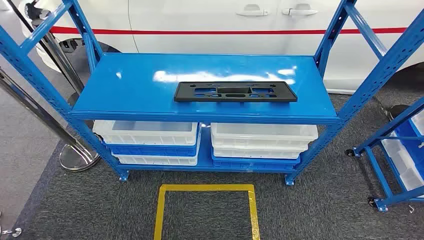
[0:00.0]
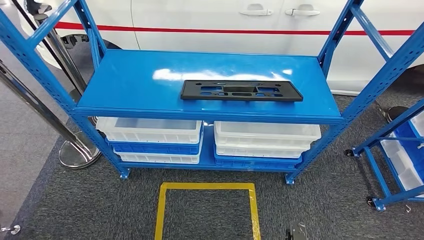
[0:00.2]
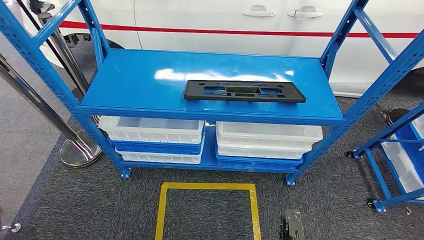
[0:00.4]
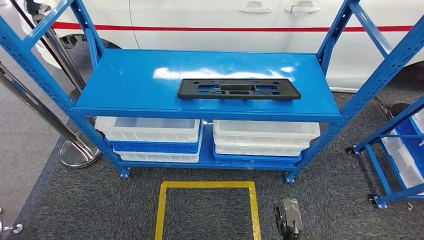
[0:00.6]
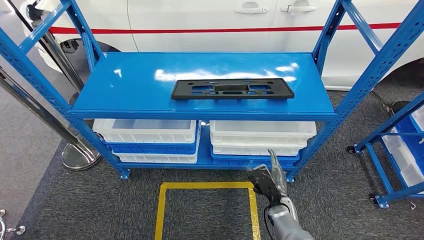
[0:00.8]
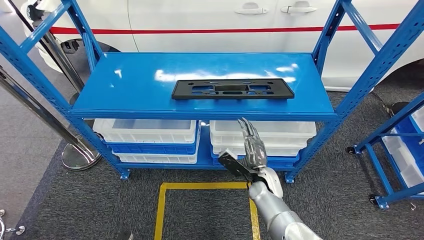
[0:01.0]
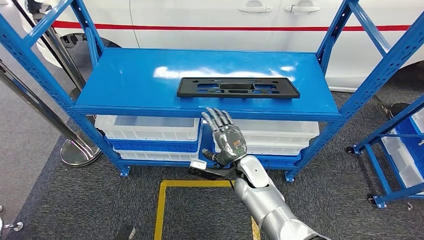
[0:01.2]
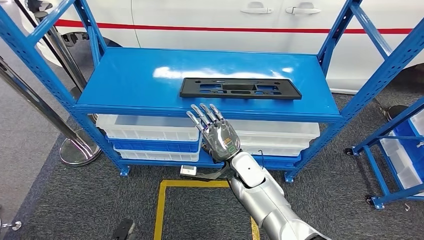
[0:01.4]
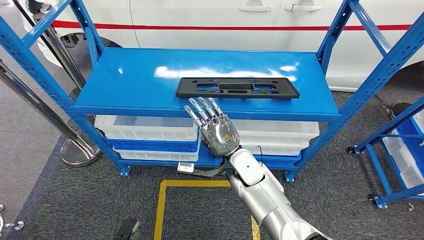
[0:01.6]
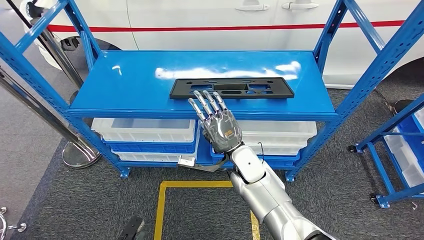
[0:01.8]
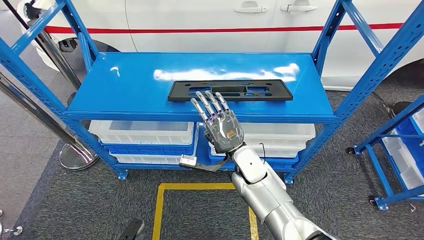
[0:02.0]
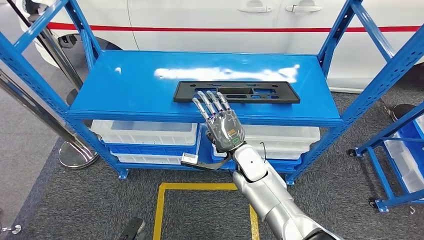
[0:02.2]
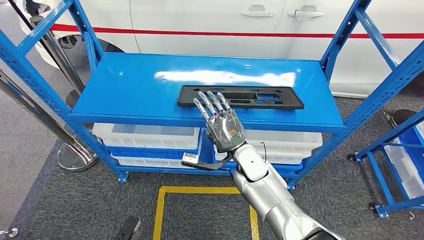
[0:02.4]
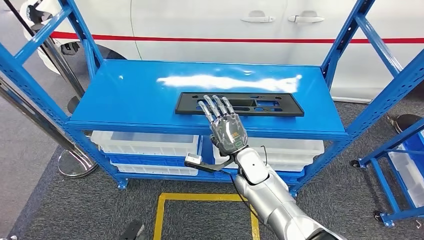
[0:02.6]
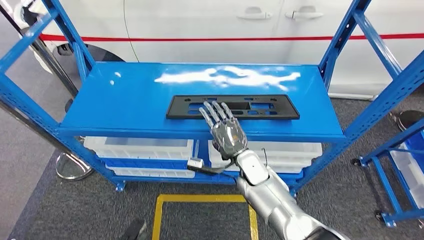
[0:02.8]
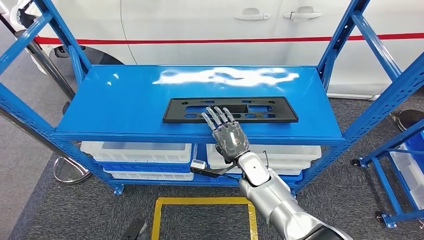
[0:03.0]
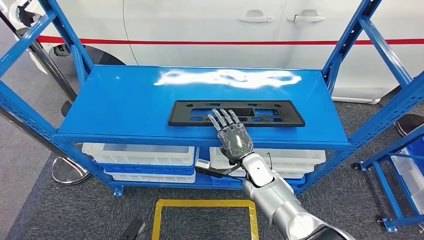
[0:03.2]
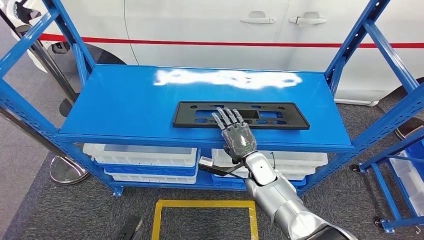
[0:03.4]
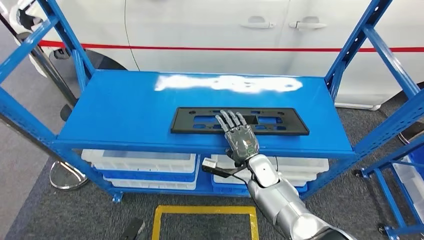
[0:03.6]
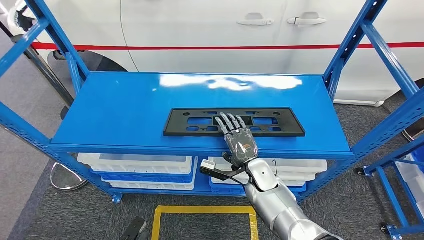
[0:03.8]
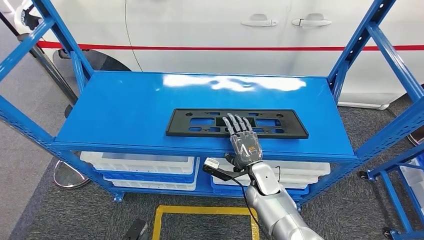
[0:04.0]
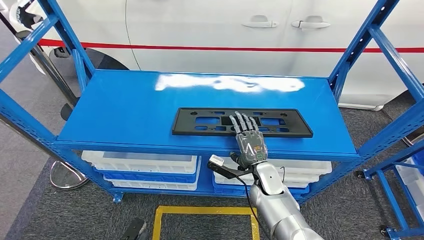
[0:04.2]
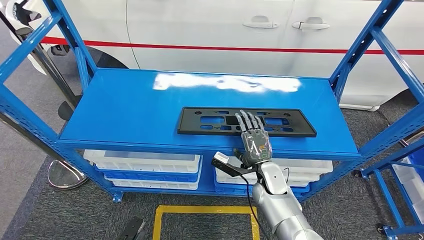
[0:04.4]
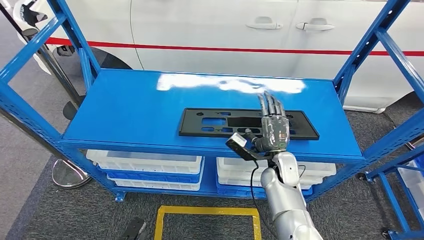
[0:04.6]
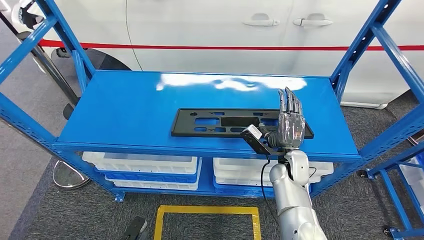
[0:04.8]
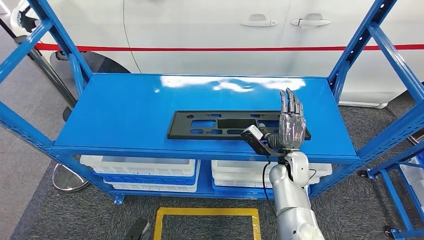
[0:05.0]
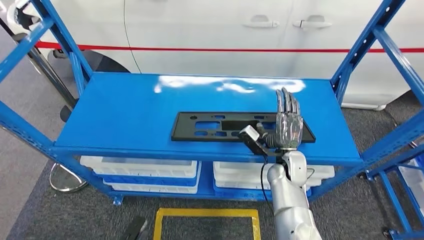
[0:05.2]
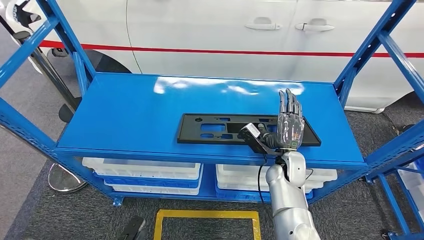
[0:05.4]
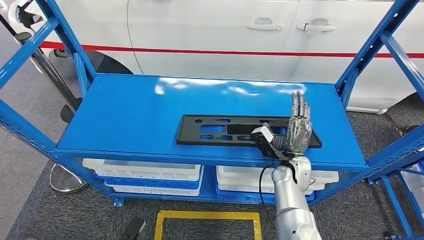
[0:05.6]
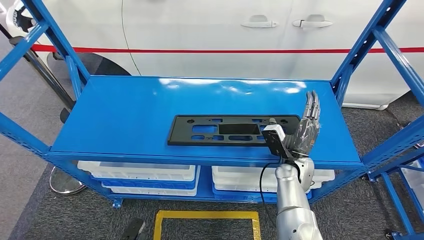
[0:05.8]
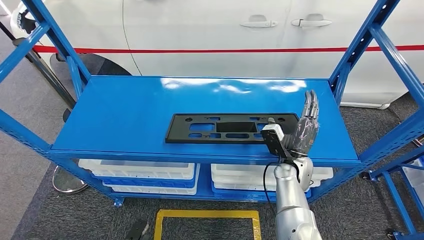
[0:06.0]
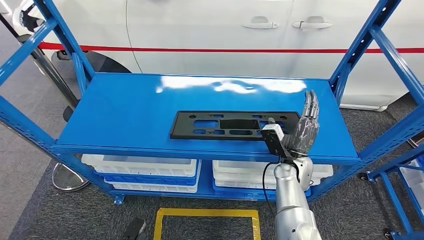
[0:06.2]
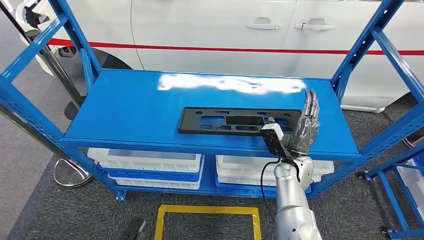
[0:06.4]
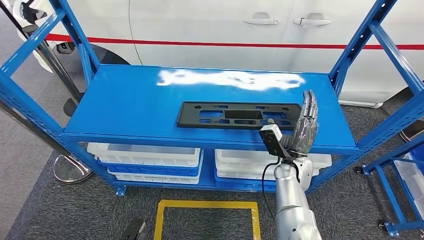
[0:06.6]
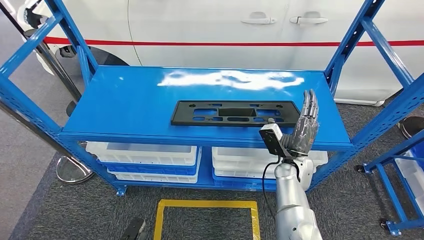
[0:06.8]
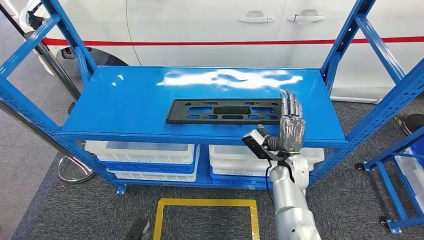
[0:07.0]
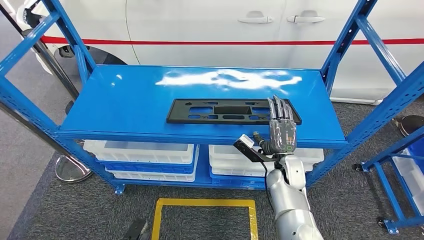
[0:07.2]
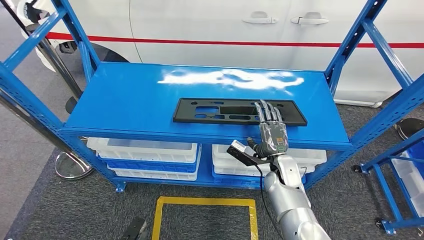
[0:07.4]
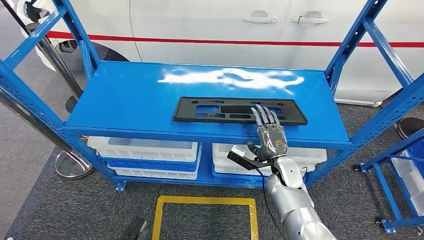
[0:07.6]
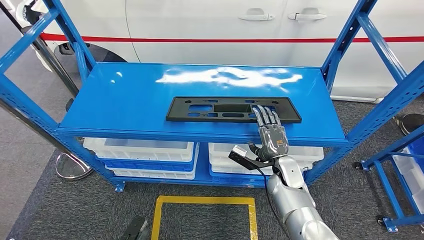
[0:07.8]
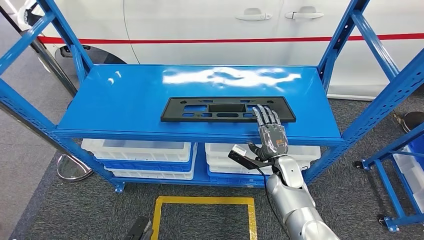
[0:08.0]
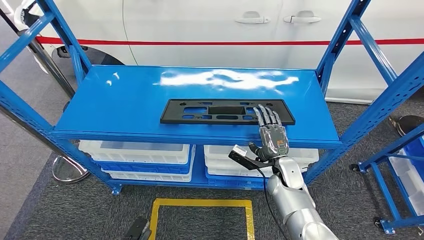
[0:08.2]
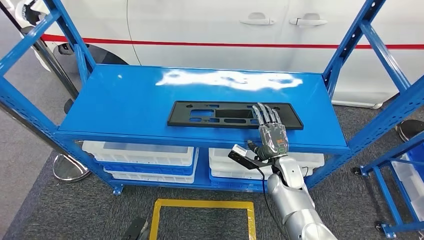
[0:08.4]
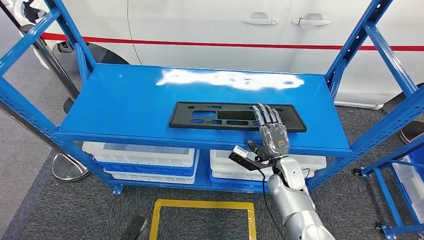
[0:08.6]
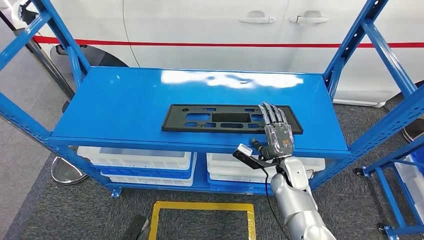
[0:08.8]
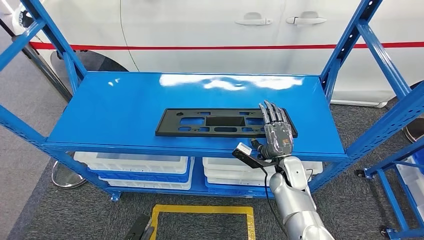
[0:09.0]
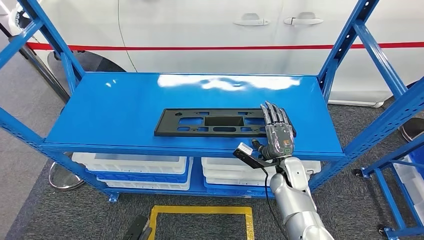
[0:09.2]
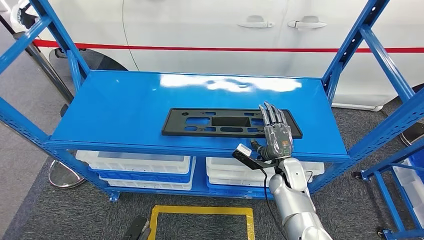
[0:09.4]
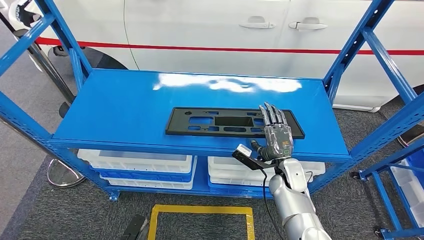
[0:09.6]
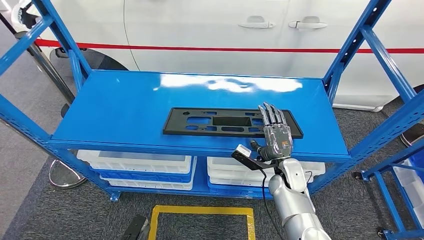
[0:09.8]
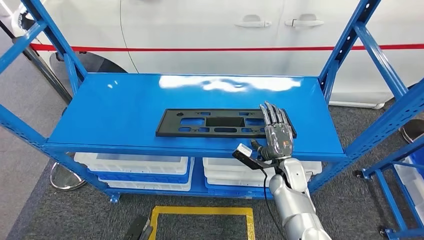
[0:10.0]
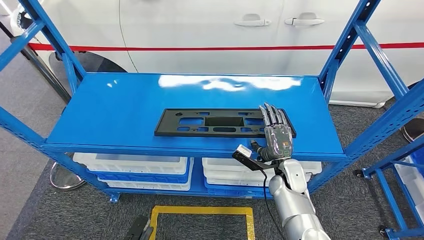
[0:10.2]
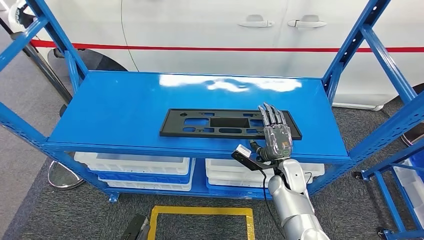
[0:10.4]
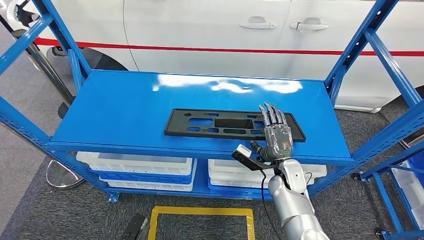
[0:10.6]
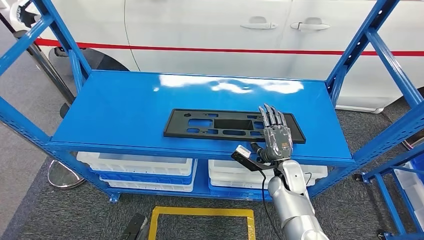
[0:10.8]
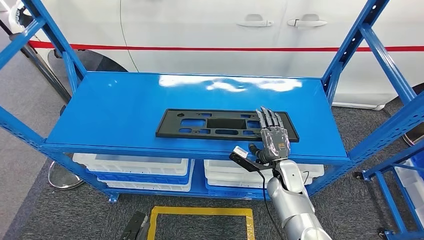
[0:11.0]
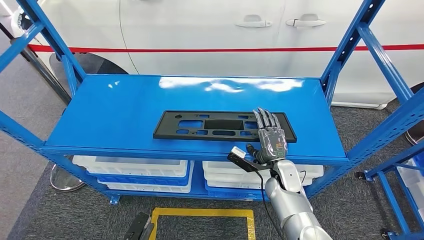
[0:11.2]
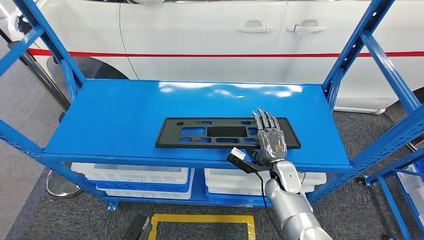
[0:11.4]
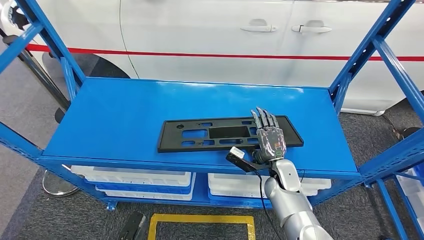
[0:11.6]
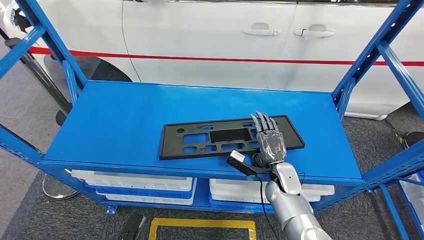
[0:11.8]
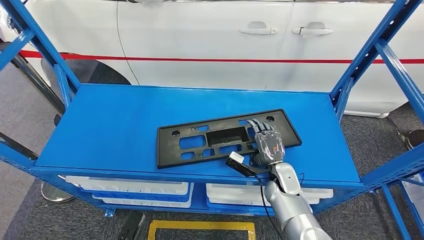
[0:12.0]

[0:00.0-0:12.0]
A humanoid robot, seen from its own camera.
0:09.0 to 0:10.4: Both hands stay about where they are.

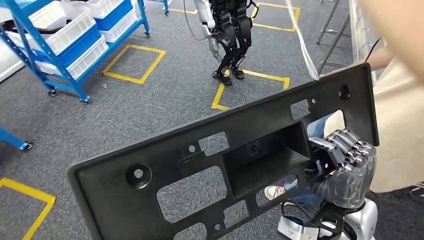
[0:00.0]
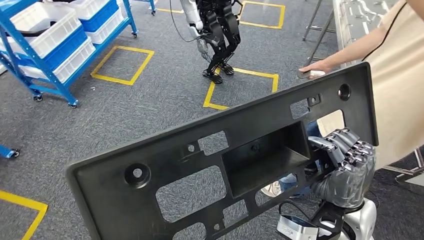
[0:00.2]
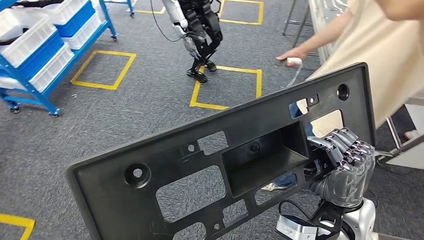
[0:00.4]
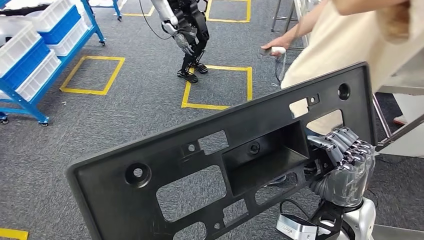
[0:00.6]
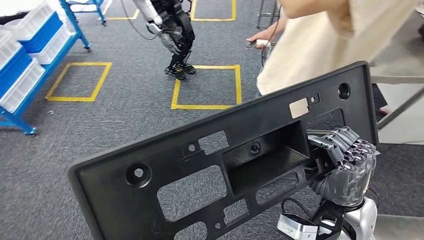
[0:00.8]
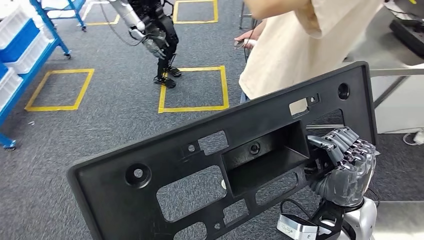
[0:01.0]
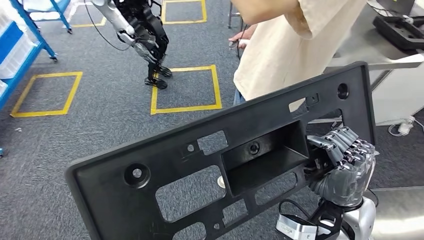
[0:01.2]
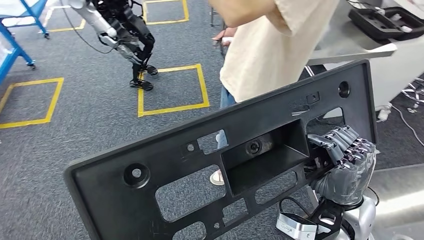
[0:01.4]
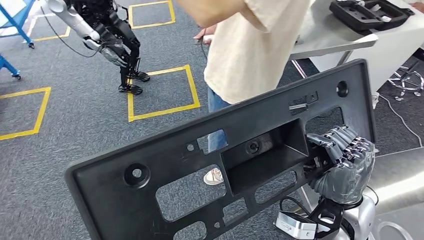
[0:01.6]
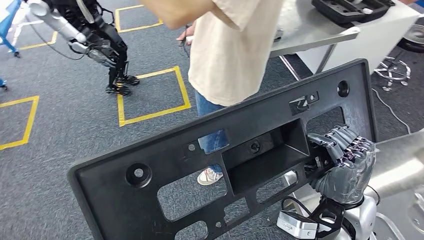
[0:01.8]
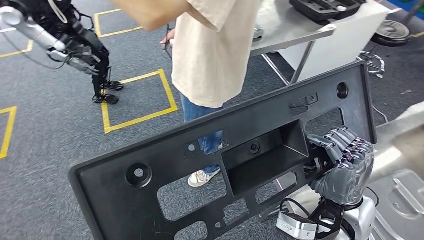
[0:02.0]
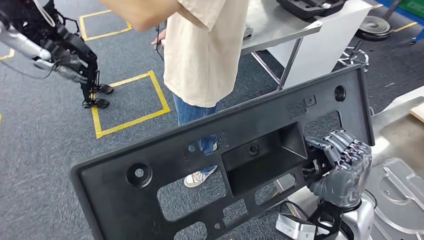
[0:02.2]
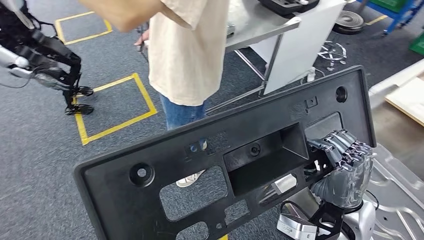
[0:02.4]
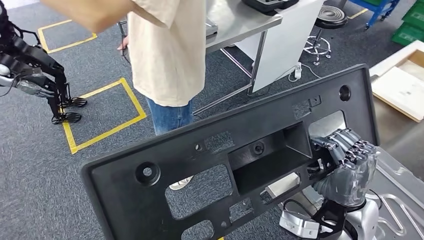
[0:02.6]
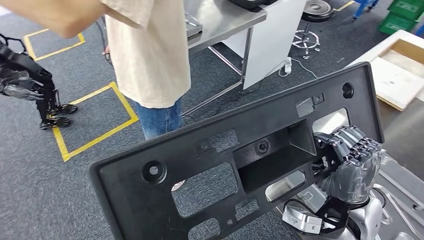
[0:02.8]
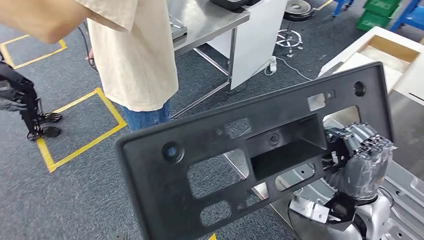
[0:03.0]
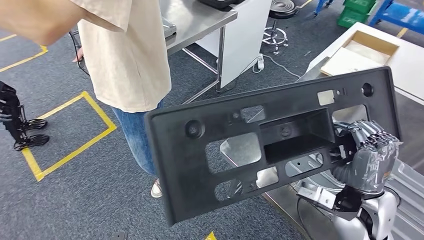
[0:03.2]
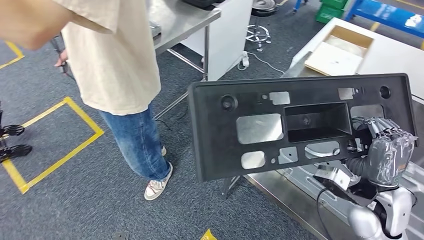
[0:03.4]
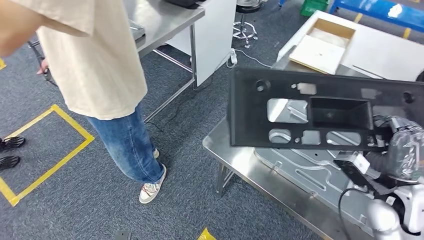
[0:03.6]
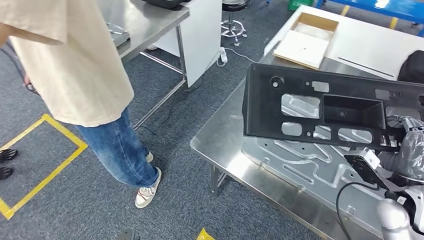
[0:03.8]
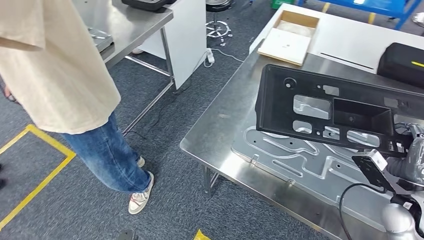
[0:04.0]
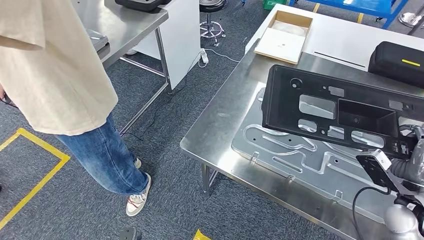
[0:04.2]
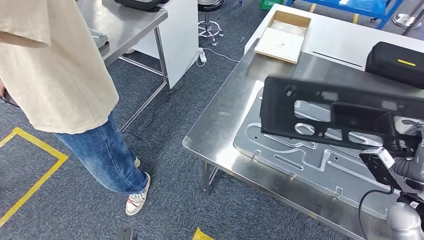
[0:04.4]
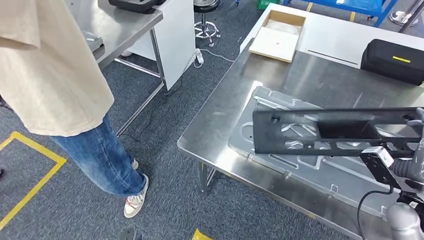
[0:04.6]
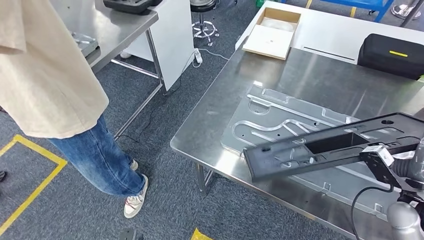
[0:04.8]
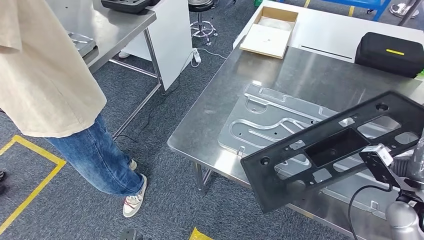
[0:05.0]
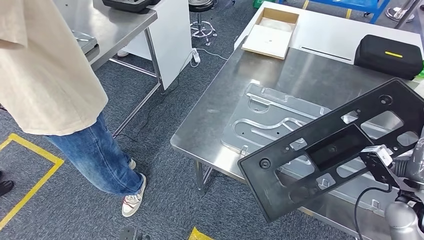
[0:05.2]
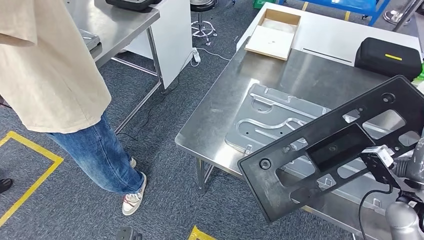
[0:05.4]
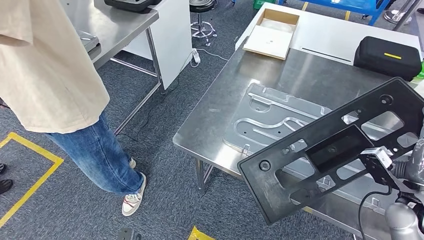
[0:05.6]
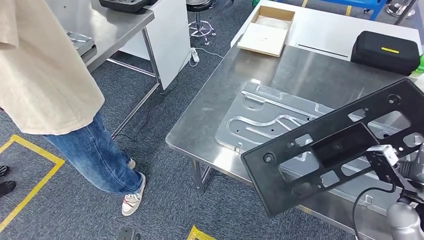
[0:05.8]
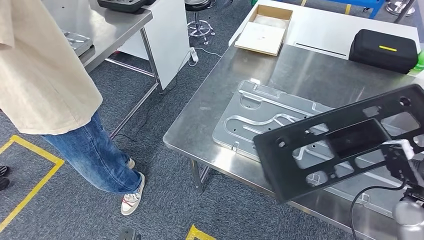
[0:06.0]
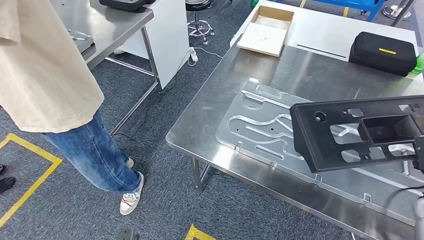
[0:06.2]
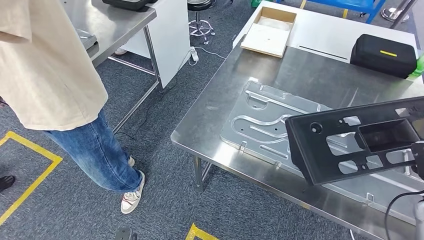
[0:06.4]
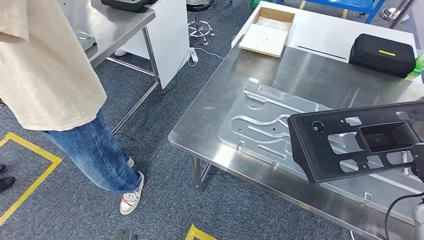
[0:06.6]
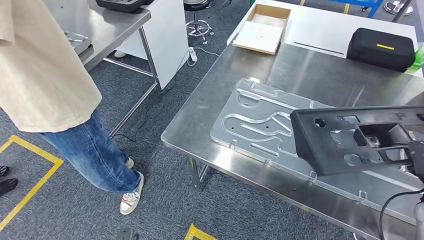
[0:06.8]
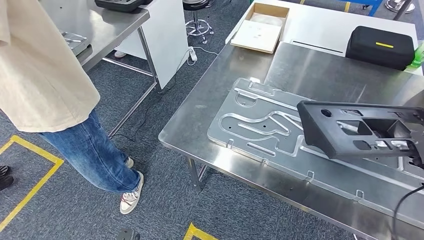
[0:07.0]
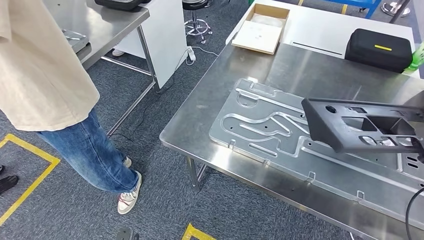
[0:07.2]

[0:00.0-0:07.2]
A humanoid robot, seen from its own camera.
Step, 0:00.0 to 0:02.6: Move the large material to the workbench.
